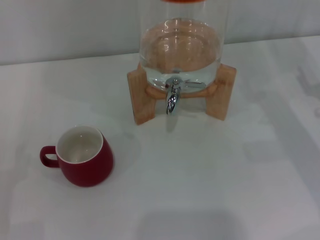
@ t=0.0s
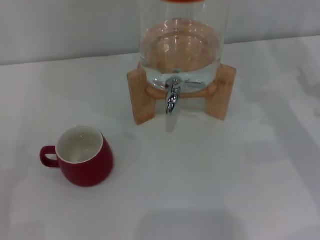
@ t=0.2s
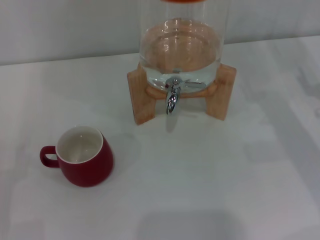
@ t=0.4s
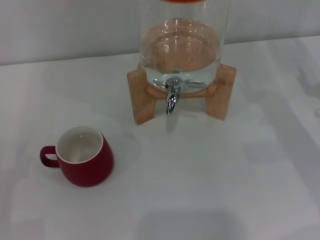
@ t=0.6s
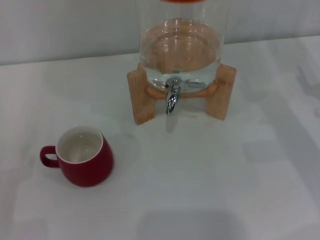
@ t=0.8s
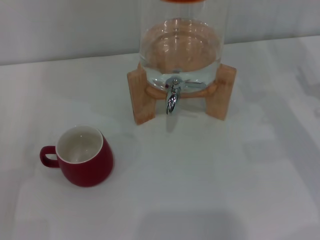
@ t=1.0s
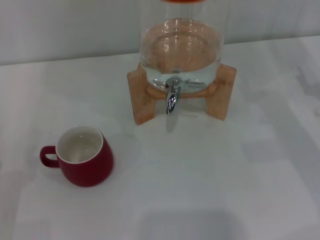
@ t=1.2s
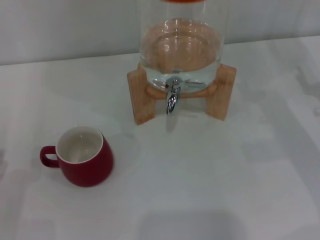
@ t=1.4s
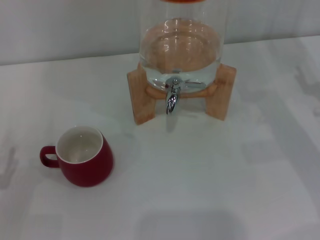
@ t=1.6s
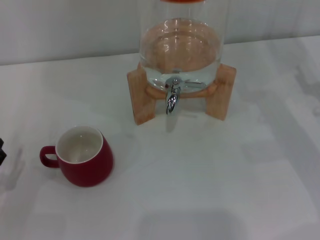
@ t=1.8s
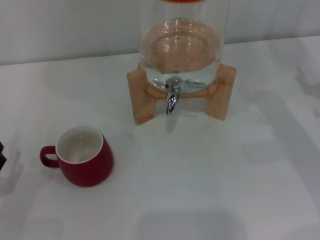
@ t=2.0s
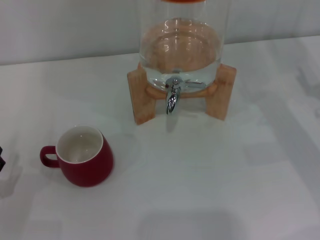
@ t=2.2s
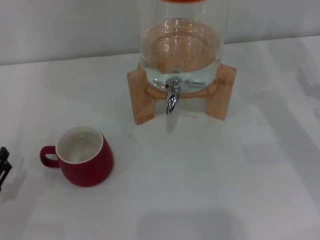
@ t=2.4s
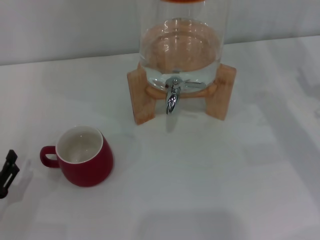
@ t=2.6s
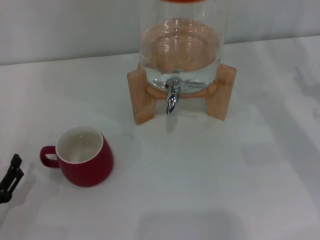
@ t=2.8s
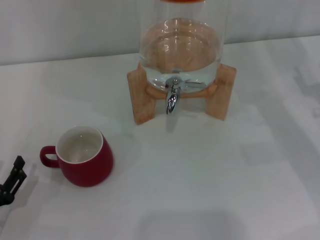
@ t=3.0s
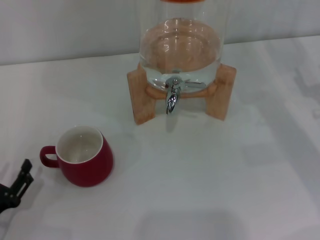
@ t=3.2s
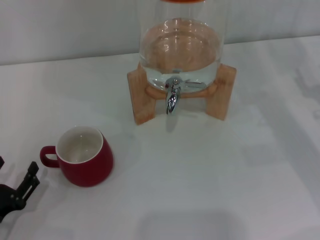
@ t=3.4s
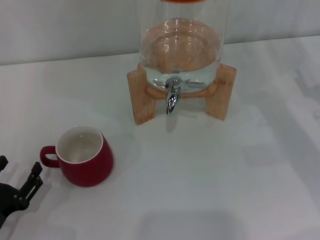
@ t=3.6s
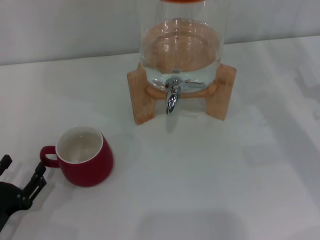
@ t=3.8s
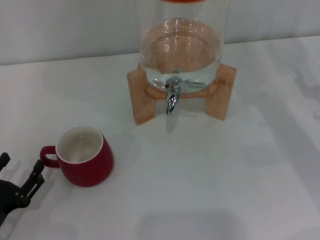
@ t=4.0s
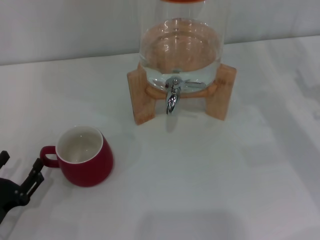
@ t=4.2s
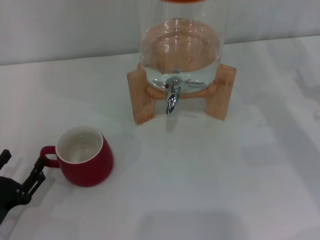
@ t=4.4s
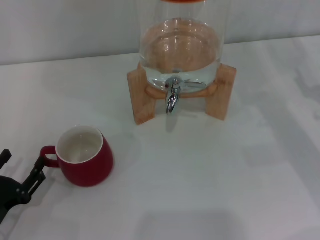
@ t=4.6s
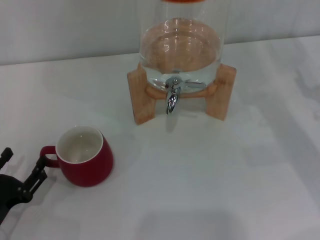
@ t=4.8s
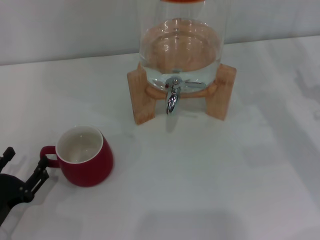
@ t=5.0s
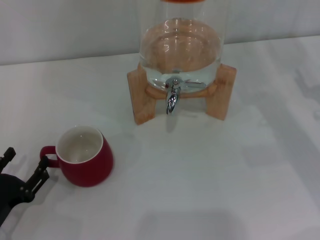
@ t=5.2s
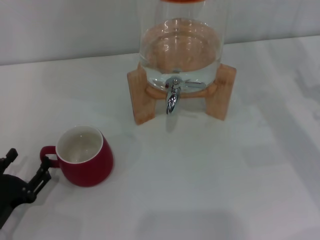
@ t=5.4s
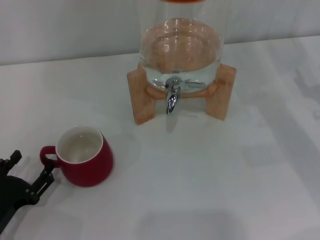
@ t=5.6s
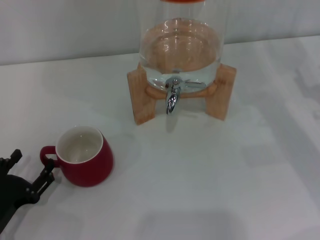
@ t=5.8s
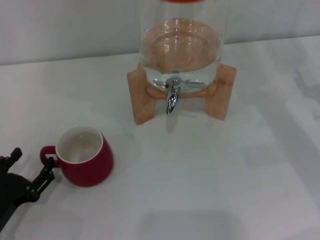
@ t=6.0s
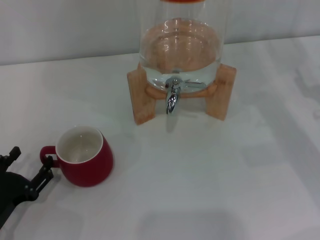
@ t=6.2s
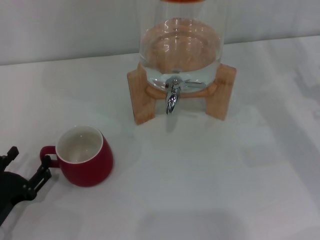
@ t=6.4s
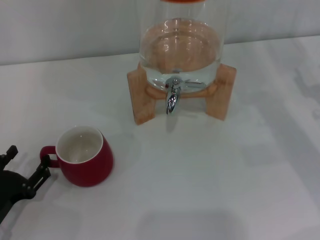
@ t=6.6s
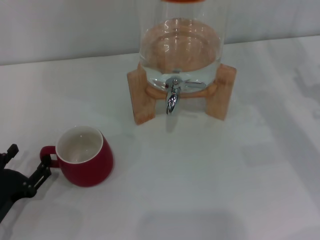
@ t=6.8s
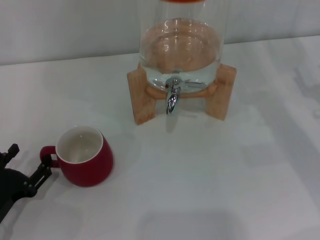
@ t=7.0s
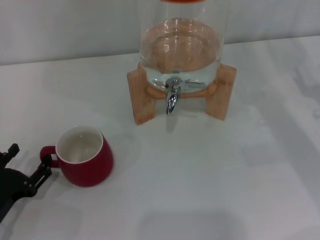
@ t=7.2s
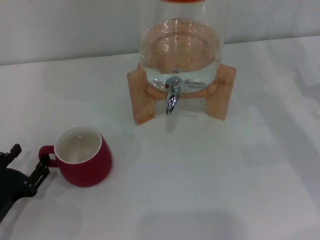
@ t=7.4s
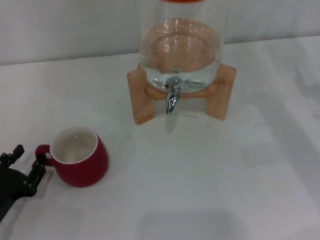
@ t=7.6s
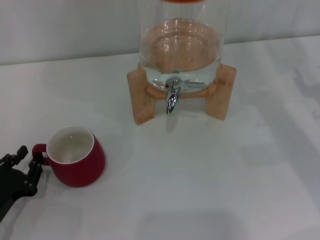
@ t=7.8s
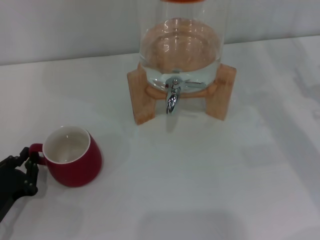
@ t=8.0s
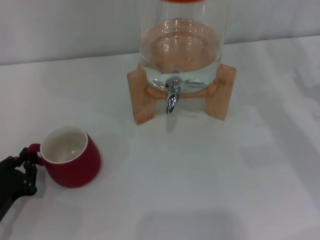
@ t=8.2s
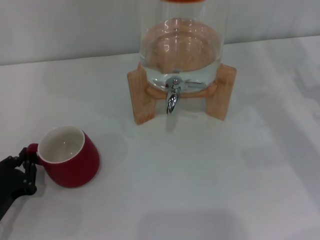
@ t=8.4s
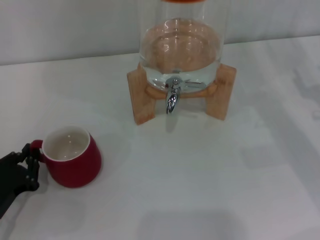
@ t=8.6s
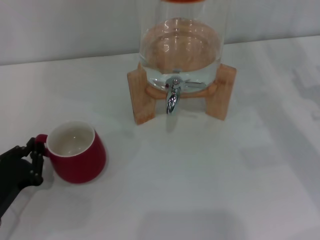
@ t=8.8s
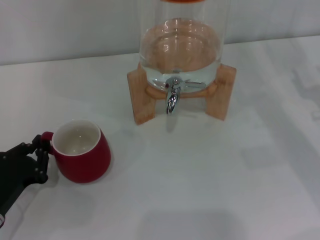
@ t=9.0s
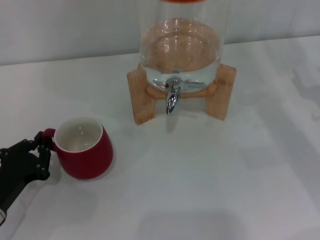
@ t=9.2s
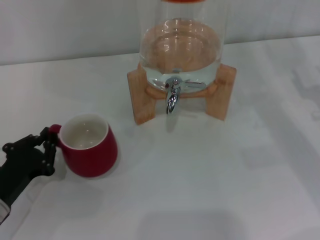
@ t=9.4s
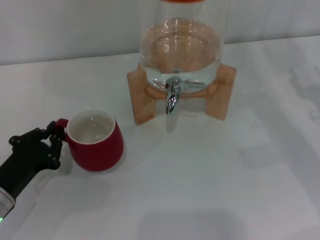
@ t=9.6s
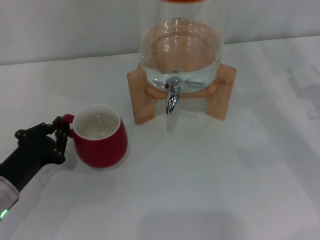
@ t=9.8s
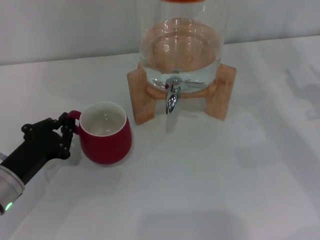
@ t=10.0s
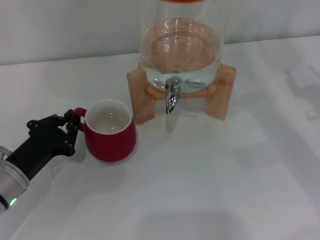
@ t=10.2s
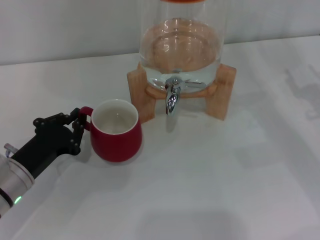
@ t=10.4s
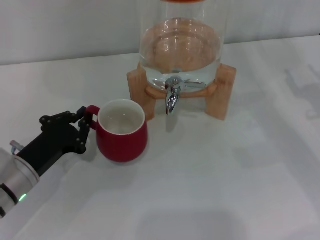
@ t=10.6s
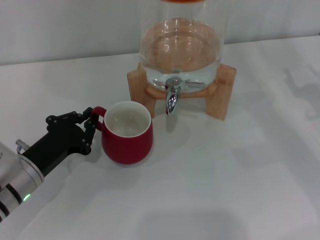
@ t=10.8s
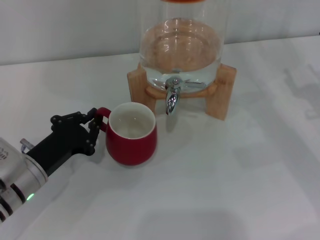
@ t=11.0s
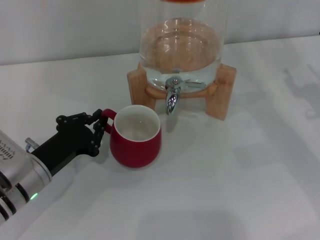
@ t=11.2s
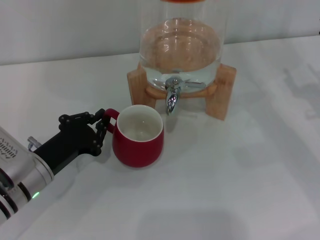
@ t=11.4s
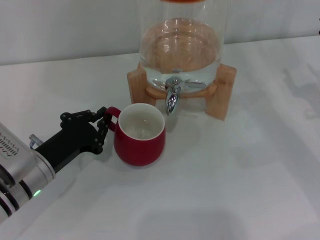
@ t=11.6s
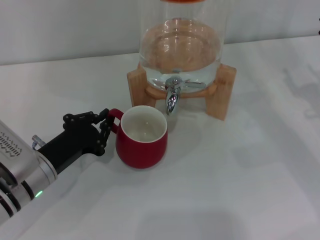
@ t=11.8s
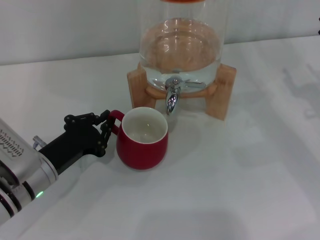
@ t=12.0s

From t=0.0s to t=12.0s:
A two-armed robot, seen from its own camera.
Task of the whole recording: the left gripper pick up the red cup and place it horizontally under the faucet, the right gripper turn on the faucet to fill the cup, and then turn off the faucet.
From t=1.6s to t=4.4s: There are only small adjustments of the grippers.
From t=4.4s to t=6.0s: Both grippers stay put.
From t=6.0s to t=7.6s: Both grippers stay put.
From t=7.6s to t=9.0s: The left gripper closes.
From t=9.0s to t=10.4s: The left gripper moves forward, about 5 cm.
From t=10.4s to t=12.0s: The grippers move only a little.

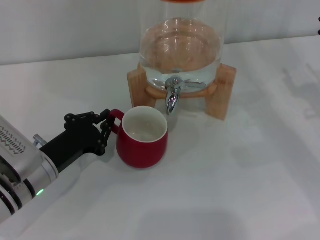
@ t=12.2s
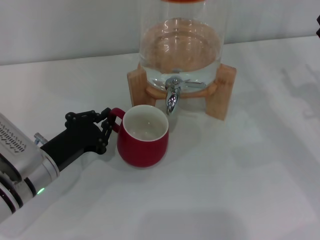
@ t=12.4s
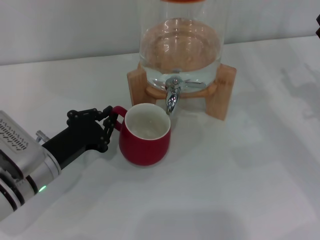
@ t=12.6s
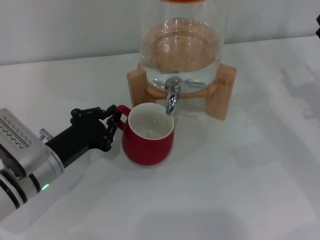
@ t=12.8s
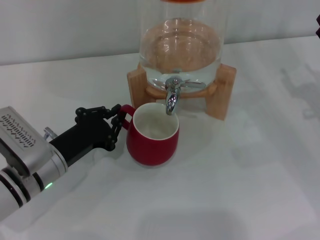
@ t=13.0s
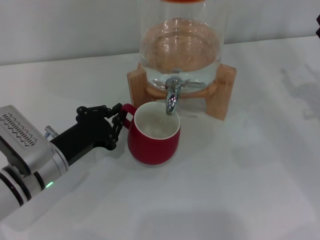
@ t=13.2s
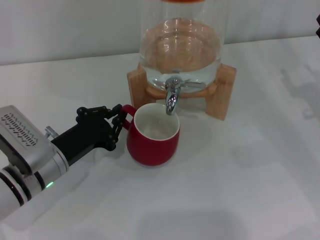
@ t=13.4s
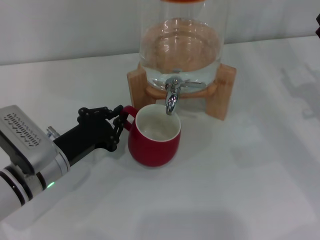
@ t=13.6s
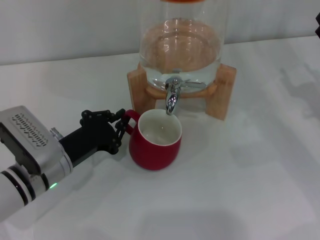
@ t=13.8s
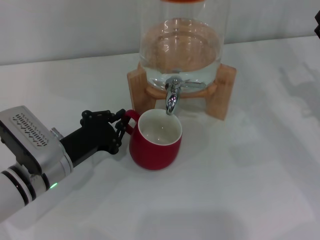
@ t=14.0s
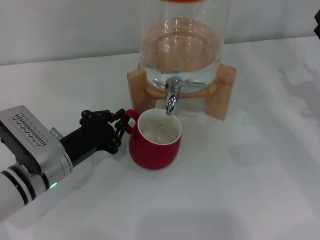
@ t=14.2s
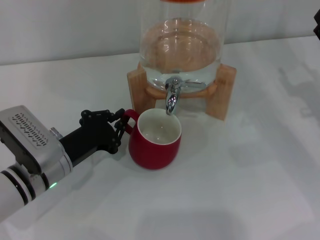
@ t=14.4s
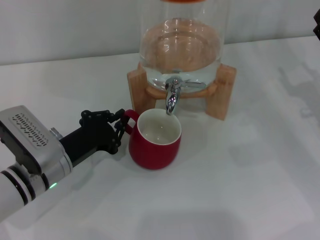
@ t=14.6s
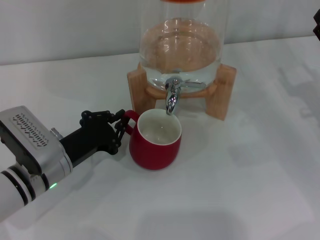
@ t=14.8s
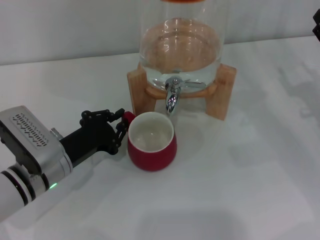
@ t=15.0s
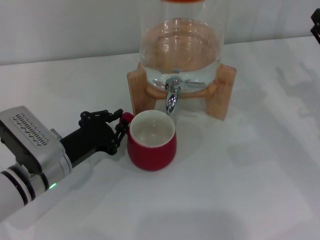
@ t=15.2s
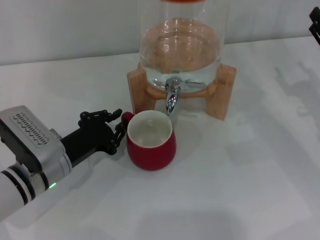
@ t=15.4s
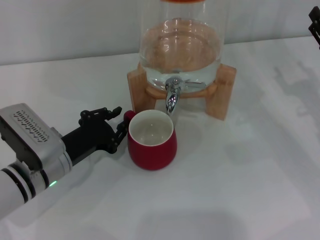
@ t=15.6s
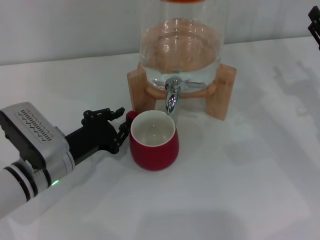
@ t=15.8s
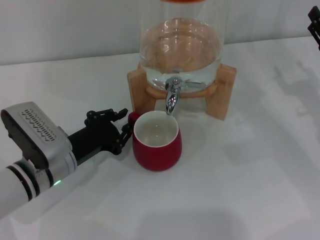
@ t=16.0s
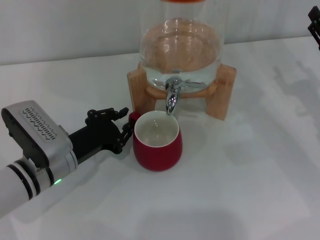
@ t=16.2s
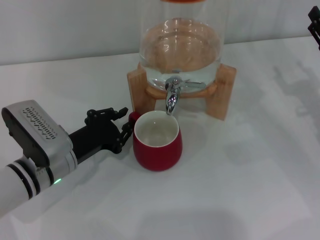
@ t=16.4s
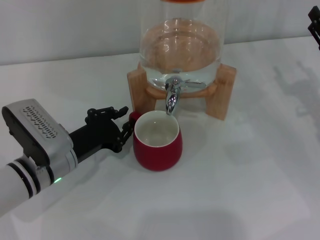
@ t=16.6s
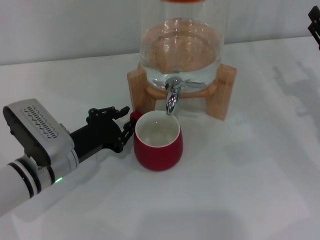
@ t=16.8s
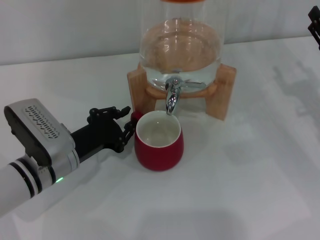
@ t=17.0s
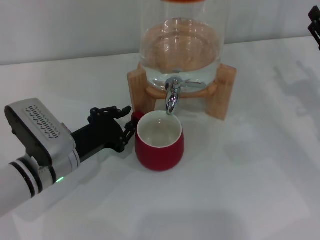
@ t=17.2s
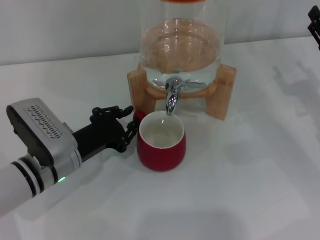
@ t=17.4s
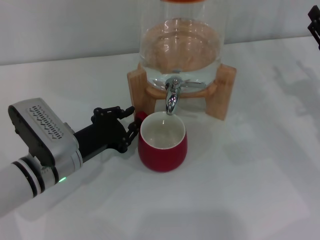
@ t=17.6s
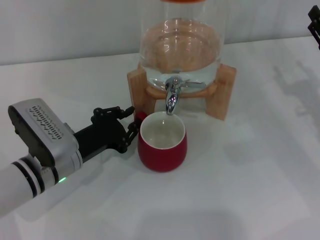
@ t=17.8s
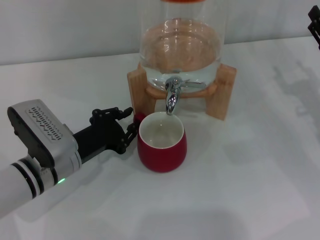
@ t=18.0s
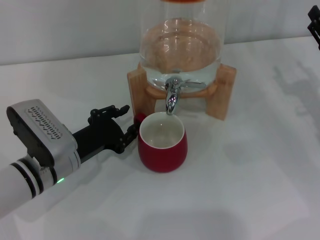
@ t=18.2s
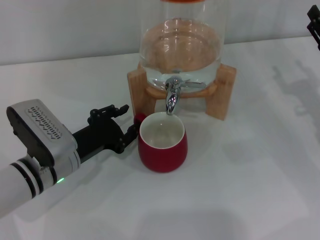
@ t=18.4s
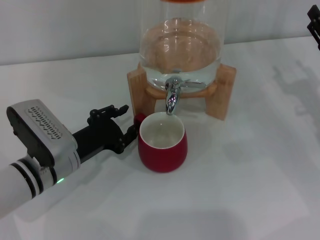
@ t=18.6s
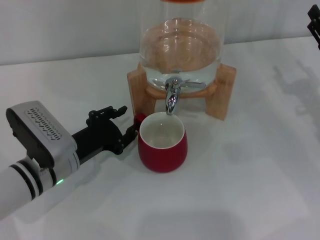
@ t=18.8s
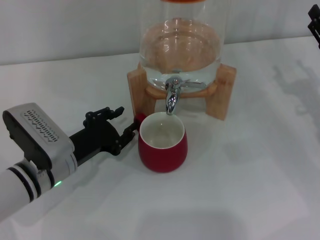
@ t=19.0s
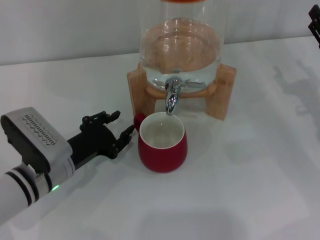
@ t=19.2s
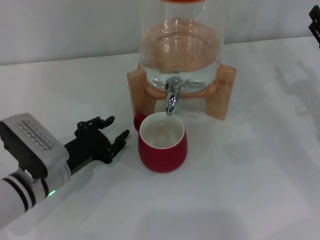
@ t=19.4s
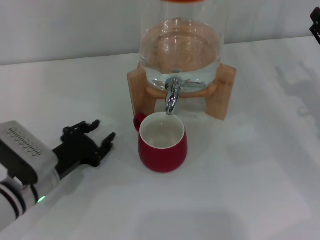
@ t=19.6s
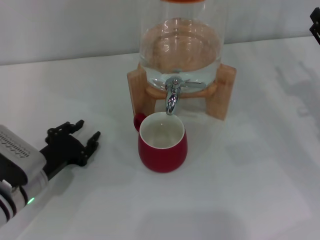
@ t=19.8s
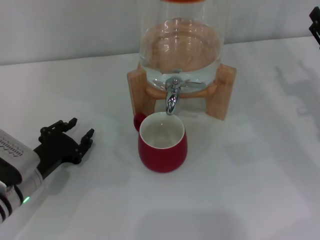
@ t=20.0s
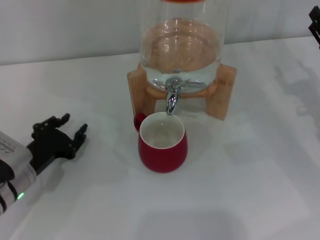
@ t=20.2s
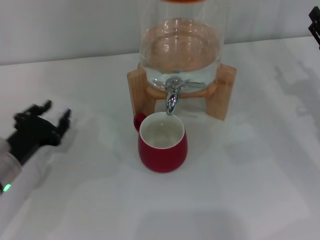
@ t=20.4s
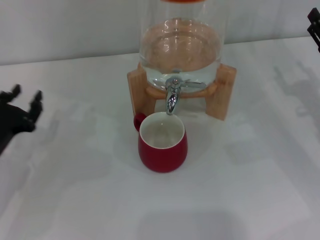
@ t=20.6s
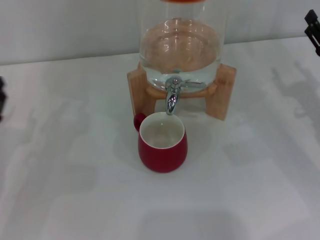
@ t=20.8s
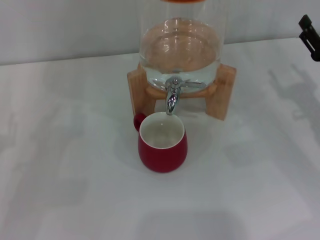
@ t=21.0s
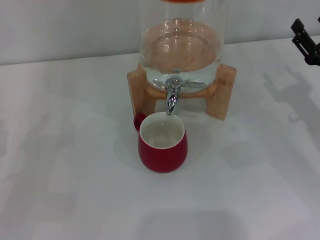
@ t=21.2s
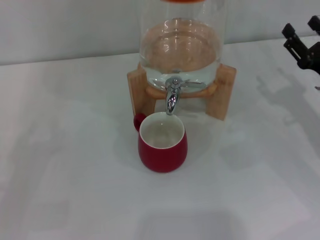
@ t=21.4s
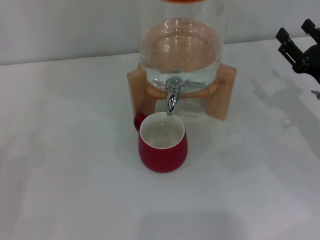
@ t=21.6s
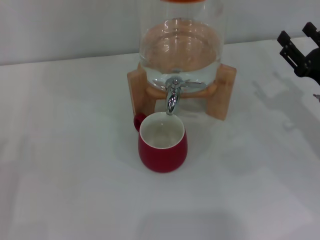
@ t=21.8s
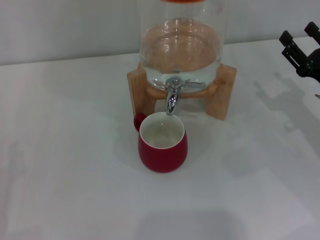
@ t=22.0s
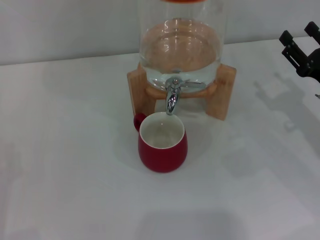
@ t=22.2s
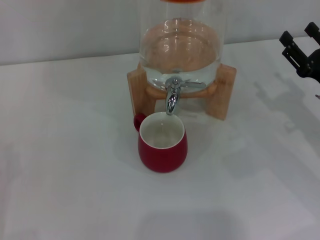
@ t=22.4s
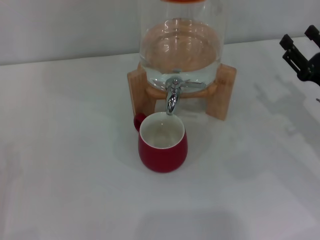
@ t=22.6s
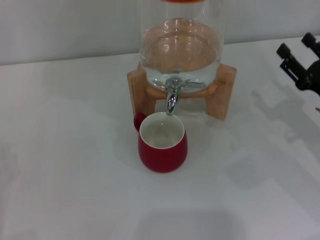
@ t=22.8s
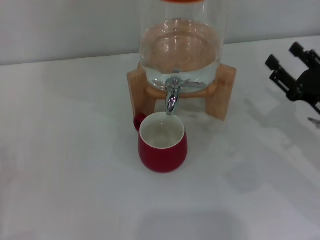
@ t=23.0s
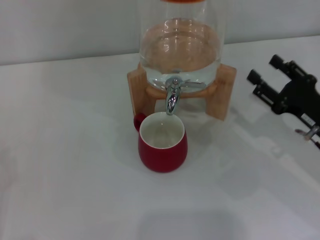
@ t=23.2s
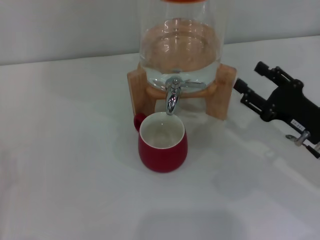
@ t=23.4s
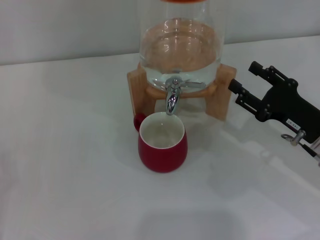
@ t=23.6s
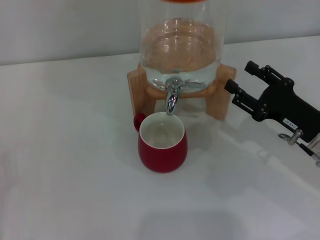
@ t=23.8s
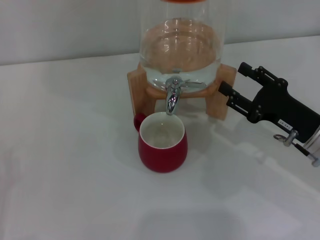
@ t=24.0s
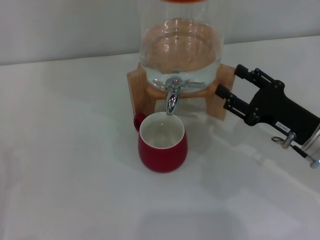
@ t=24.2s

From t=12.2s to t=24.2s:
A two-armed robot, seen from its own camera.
Task of the whole recording: the left gripper pick up the red cup and place it horizontally under the faucet, the right gripper turn on the faucet to fill the cup, and then turn off the faucet.
Step, from t=12.2s to t=19.4s: Move the cup beneath the water dispenser nozzle with the left gripper.
From t=12.2s to t=13.8s: The grippers make only small movements.
From t=13.8s to t=16.6s: Both grippers stay about where they are.
From t=16.6s to t=18.2s: Both grippers stay put.
From t=18.2s to t=19.8s: The left gripper moves roughly 5 cm.
From t=19.8s to t=21.2s: The left gripper is displaced to the left by approximately 10 cm.
From t=22.6s to t=24.2s: The right gripper shifts some 5 cm to the left.
